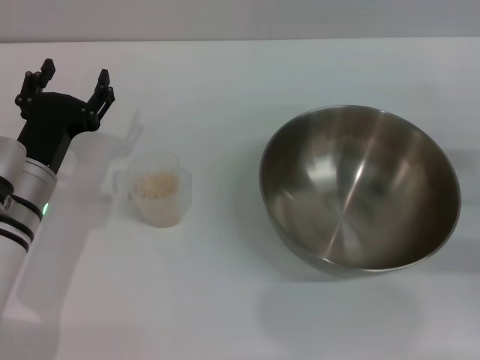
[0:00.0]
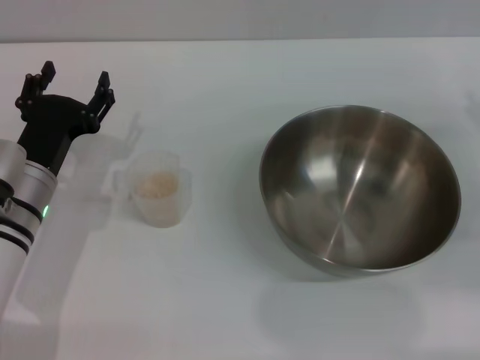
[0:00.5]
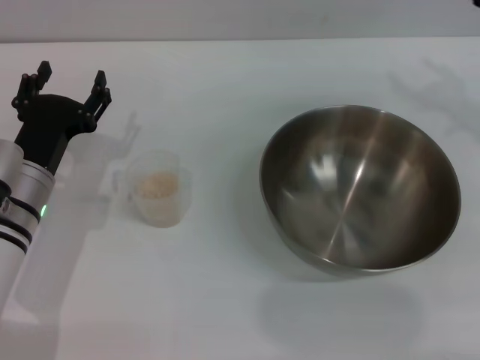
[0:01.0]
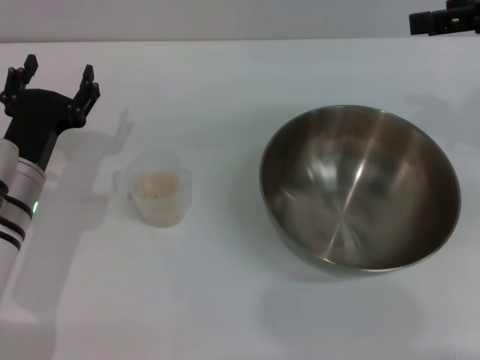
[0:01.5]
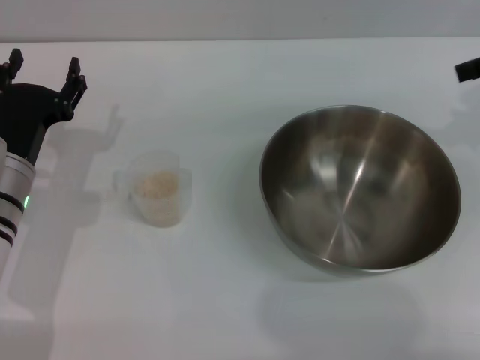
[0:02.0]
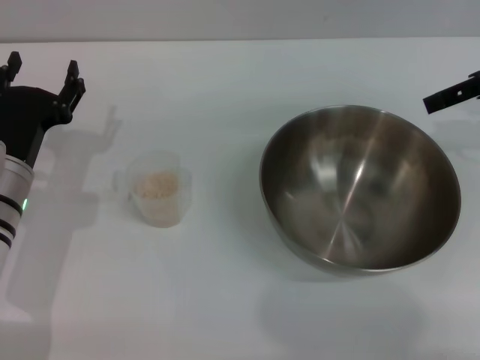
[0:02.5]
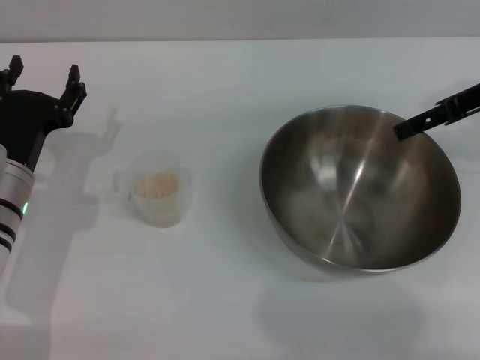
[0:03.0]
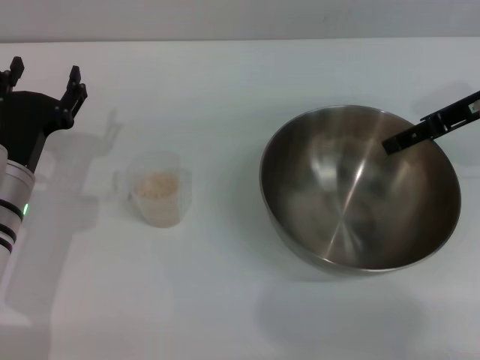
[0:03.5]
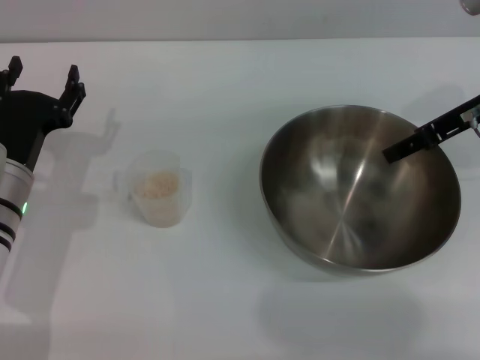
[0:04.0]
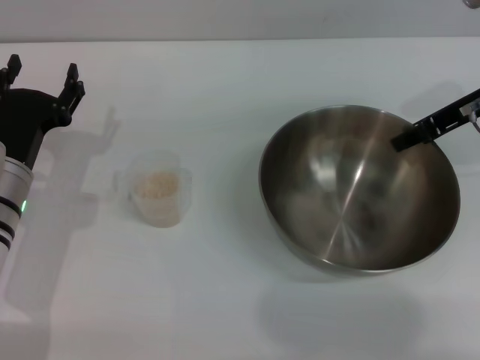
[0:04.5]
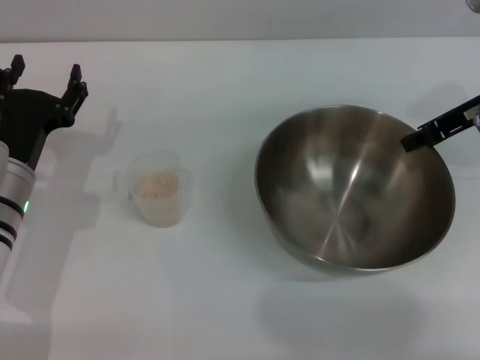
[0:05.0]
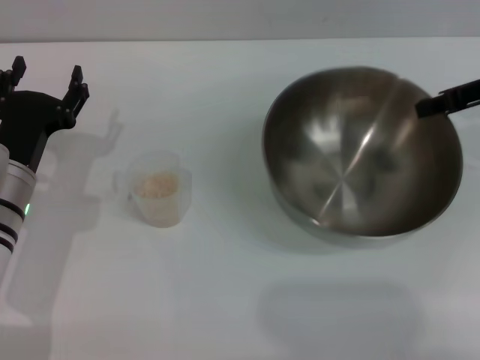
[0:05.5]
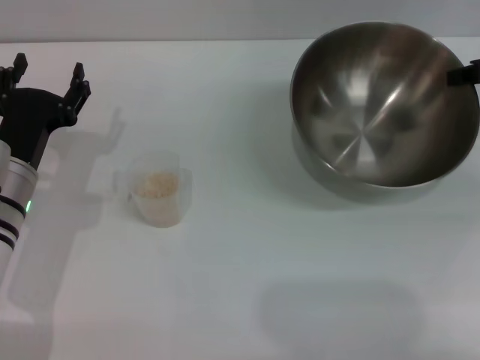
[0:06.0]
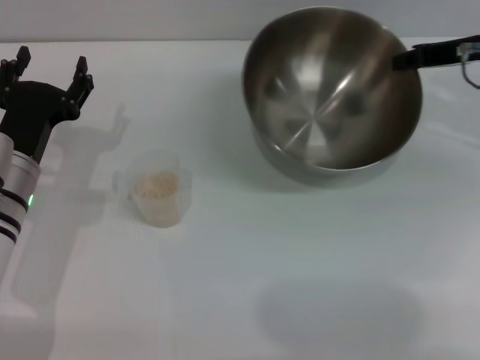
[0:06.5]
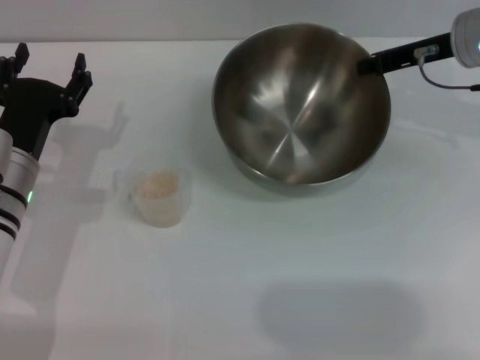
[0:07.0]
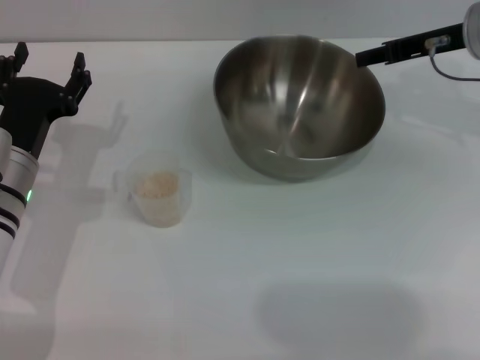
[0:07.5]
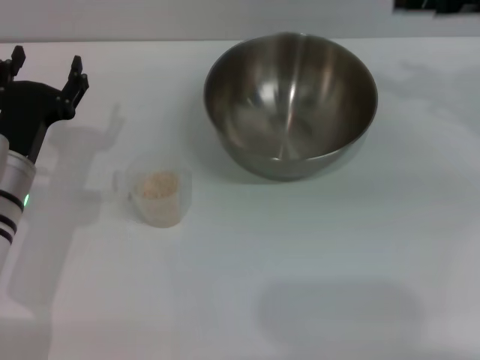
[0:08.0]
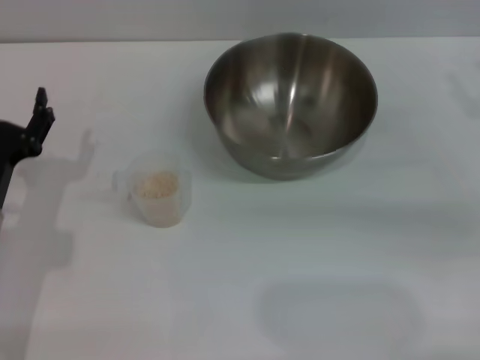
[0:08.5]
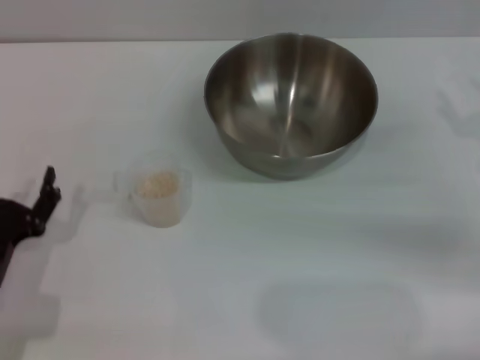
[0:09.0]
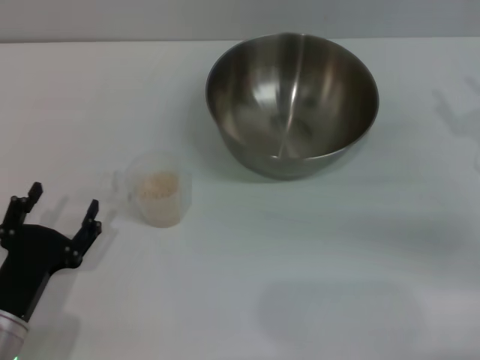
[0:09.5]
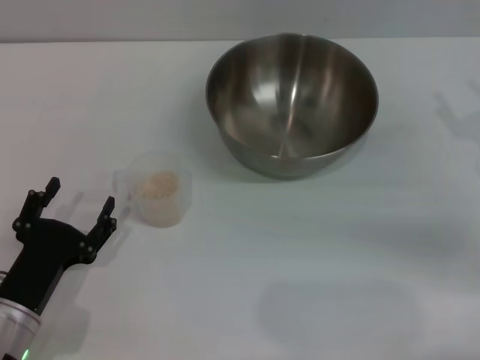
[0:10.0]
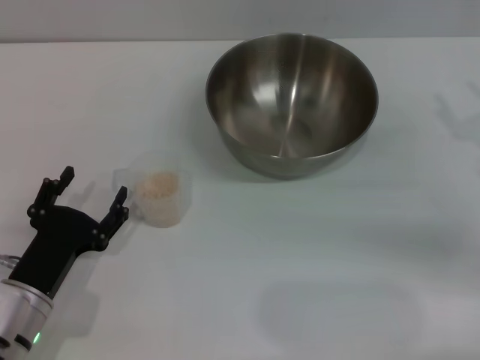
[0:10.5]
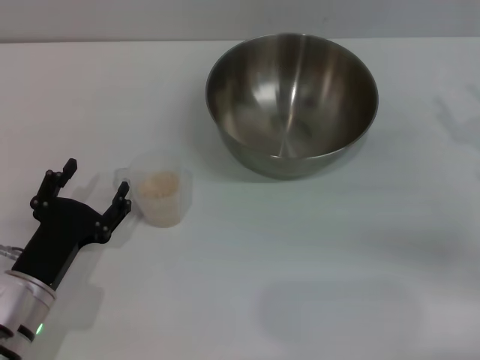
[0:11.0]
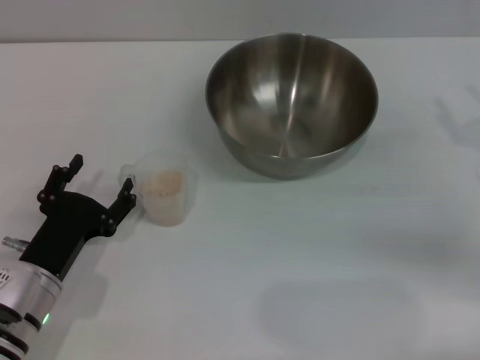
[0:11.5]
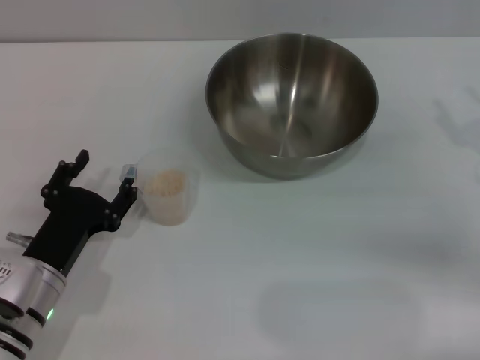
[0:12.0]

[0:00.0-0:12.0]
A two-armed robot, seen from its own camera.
Task of the whole recording: Place the bowl in the middle of the table with one hand and pour the rice from the grain cup into it with the other hand.
Step, 0:00.0 to 0:06.0: Pick up the bowl with the right gripper.
Step, 0:06.5 to 0:07.5: Place the bowl in the center of view with the right gripper.
0:00.0 to 0:02.0: The right gripper heads upward and forward, covering approximately 25 cm.
0:02.0 to 0:04.0: The right gripper travels downward and to the left by about 10 cm.
0:04.0 to 0:06.0: The right gripper travels to the right by roughly 5 cm, and closes.
0:06.0 to 0:08.0: The right gripper opens up.
0:08.0 to 0:10.0: Both grippers travel together backward and downward, roughly 15 cm.
0:10.0 to 0:12.0: The grippers stay close to where they were, moving slightly.

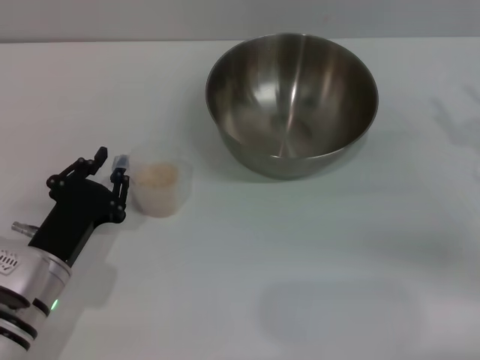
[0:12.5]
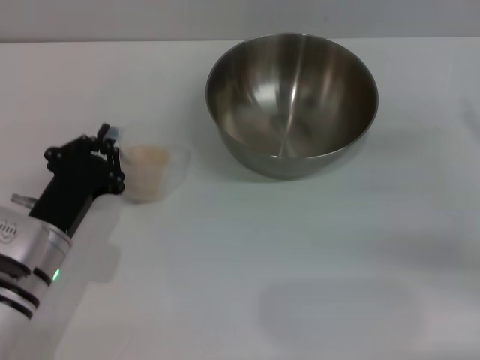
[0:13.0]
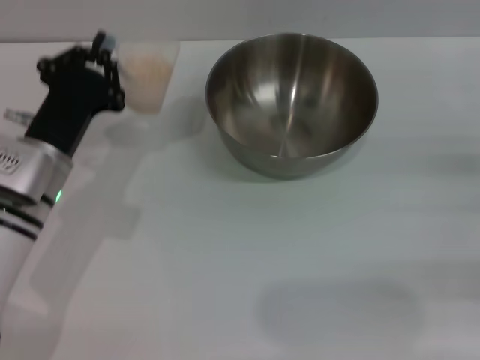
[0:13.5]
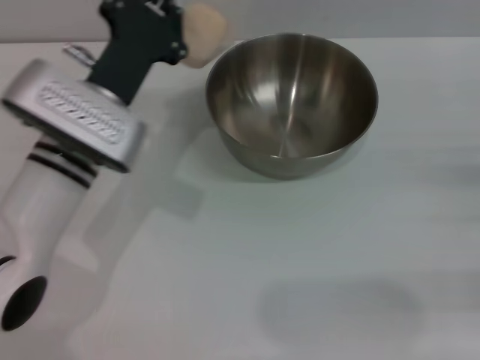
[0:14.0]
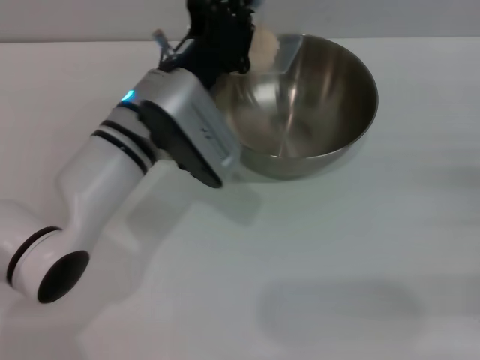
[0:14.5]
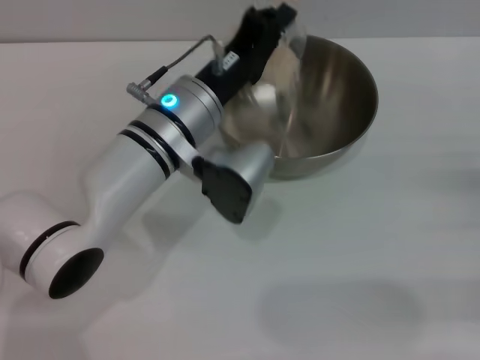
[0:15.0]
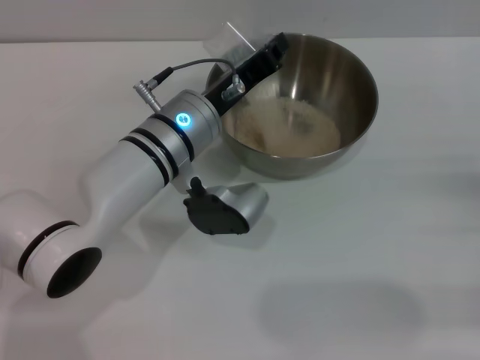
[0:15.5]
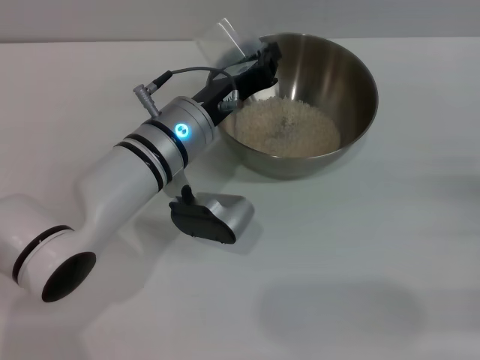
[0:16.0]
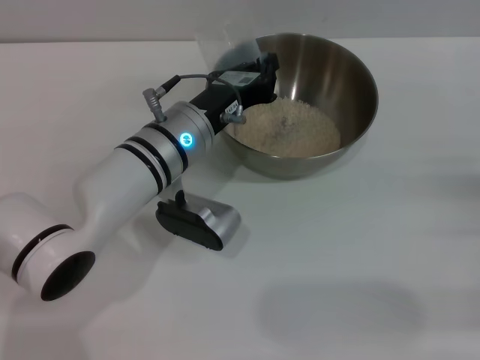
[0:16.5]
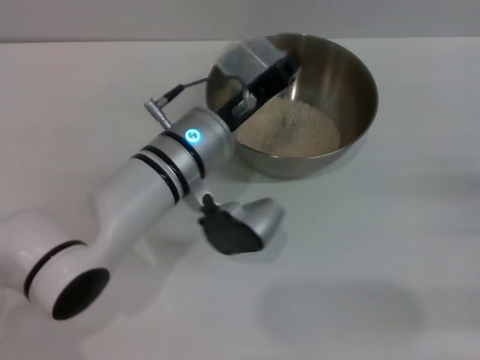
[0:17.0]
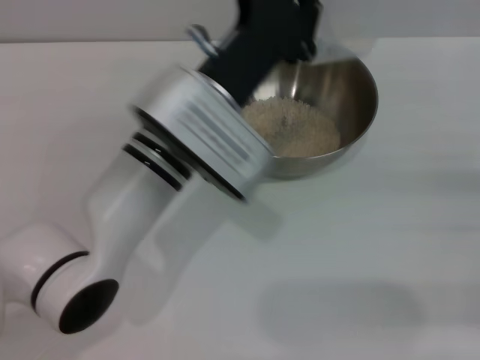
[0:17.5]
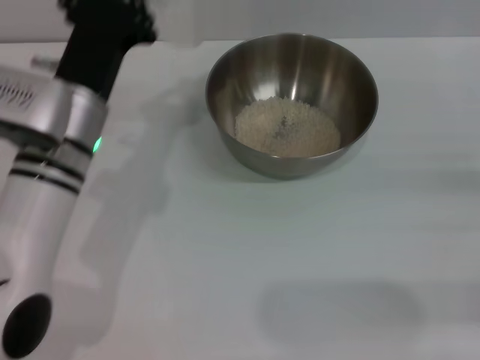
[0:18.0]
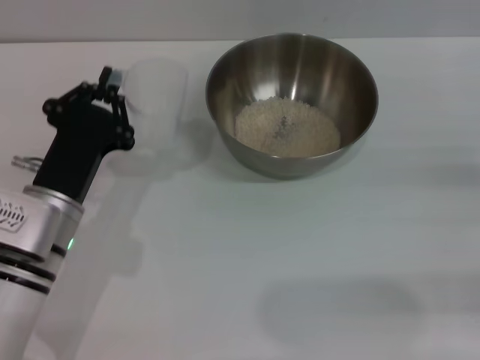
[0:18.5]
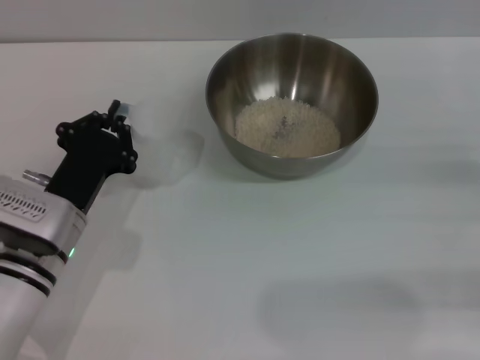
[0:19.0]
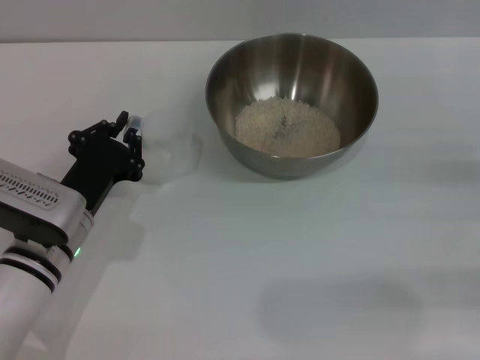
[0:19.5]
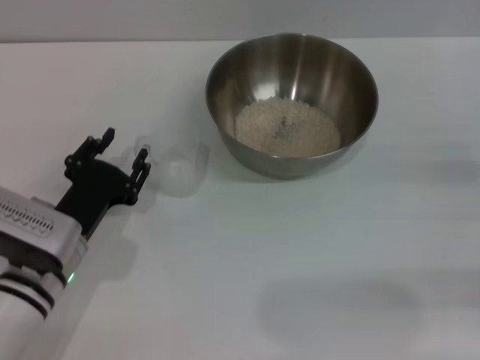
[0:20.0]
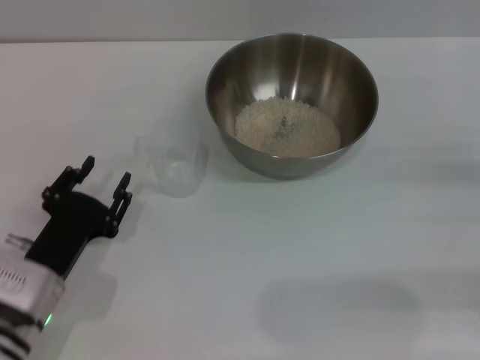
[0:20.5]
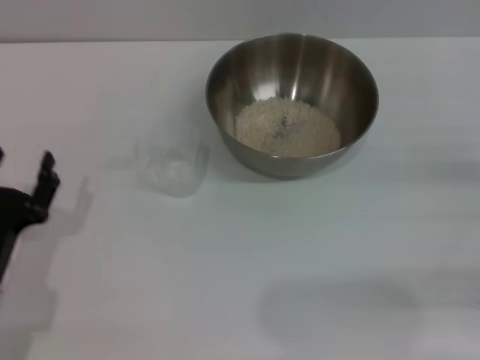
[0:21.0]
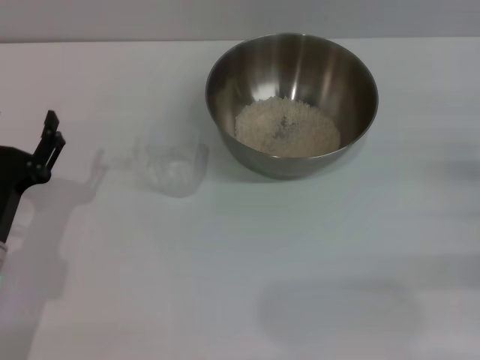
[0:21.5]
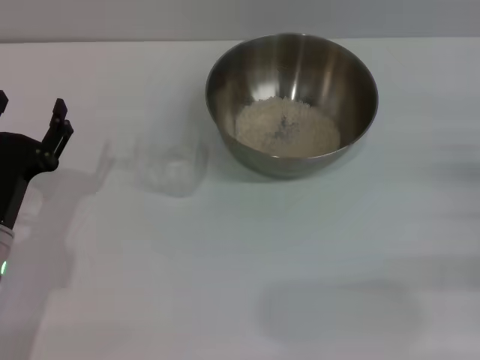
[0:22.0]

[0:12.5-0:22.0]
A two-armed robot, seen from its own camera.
Task of the whole recording: Place the bowl in the middle of the table with one hand and pour the rice from the grain cup into it with the other hand.
Step, 0:14.0 to 0:15.5: Pour the rice from the cup into the bowl with the left gripper.
Step, 0:16.0 to 0:20.0: Place the cup on the table with the left gripper.
0:12.5 to 0:14.5: The right gripper goes about 10 cm backward and to the right; the left gripper heads forward, to the right and upward, covering approximately 20 cm, and closes its fingers.
0:16.5 to 0:18.0: The left gripper goes some 10 cm to the left.
0:18.0 to 0:20.0: The left gripper moves downward and backward, some 10 cm.
0:20.0 to 0:22.0: The left gripper changes place by some 5 cm, and opens.
